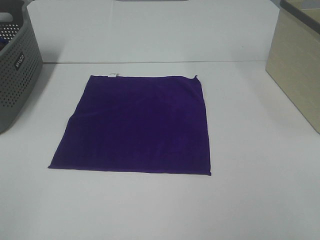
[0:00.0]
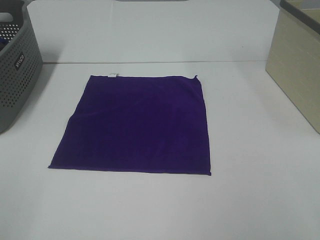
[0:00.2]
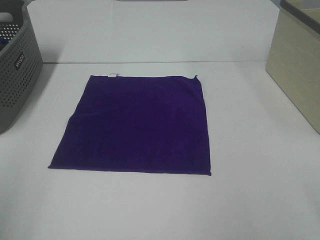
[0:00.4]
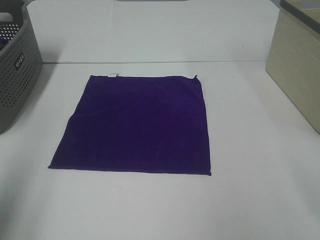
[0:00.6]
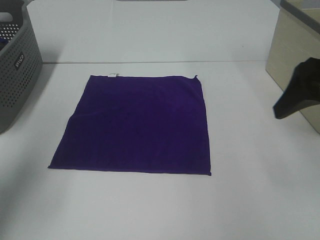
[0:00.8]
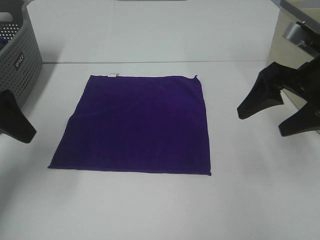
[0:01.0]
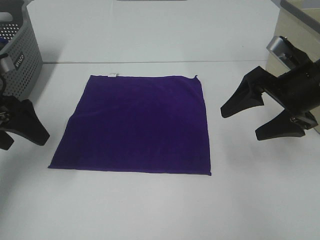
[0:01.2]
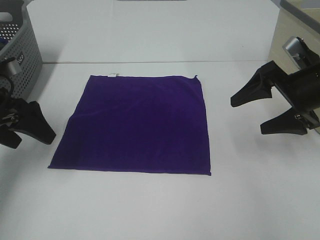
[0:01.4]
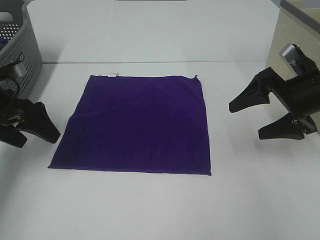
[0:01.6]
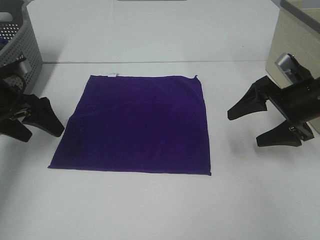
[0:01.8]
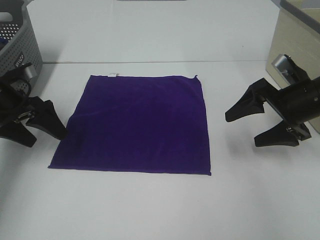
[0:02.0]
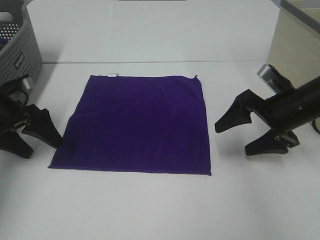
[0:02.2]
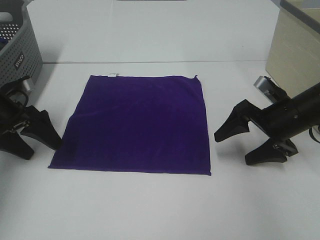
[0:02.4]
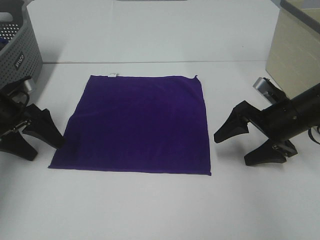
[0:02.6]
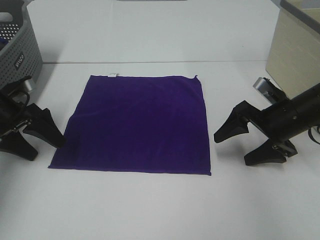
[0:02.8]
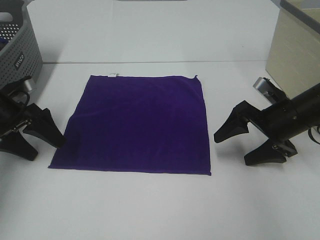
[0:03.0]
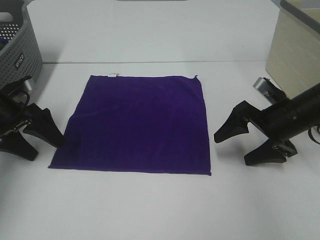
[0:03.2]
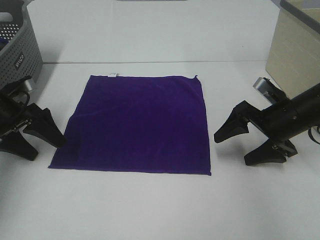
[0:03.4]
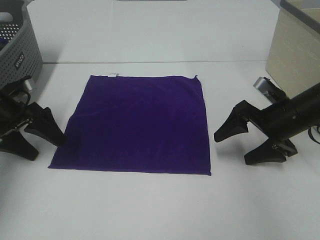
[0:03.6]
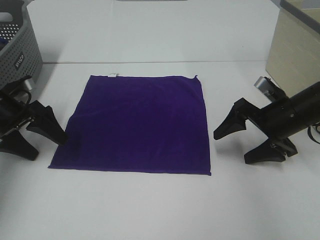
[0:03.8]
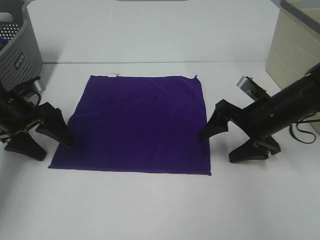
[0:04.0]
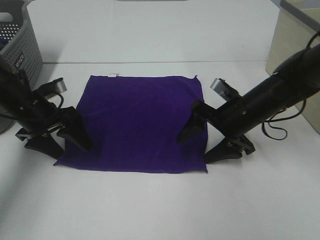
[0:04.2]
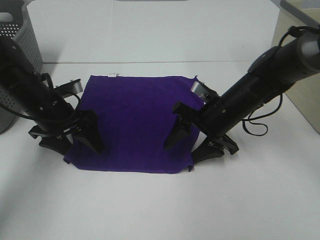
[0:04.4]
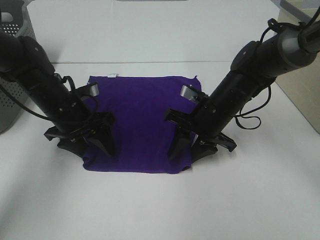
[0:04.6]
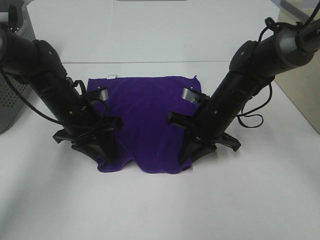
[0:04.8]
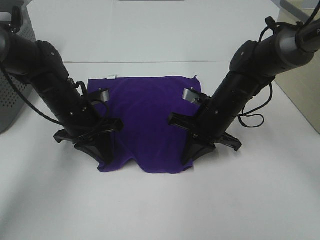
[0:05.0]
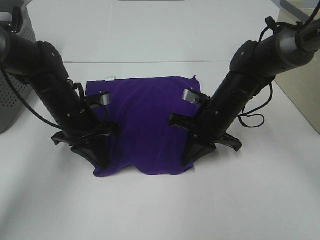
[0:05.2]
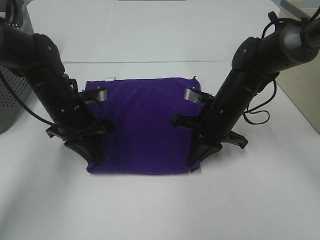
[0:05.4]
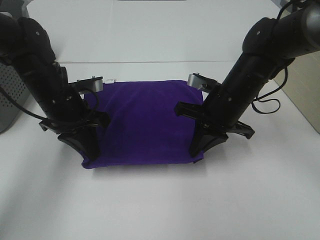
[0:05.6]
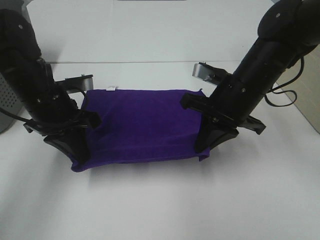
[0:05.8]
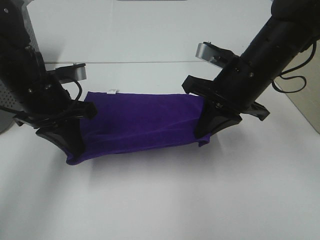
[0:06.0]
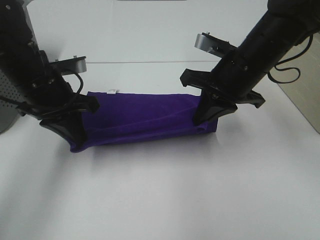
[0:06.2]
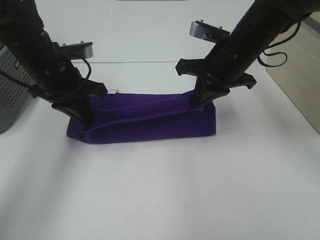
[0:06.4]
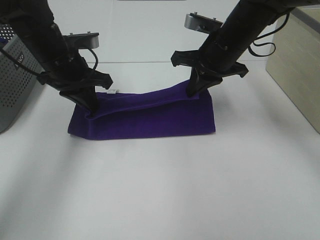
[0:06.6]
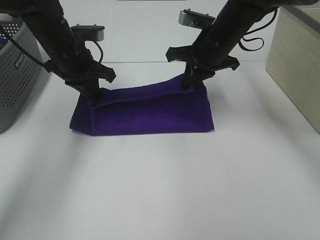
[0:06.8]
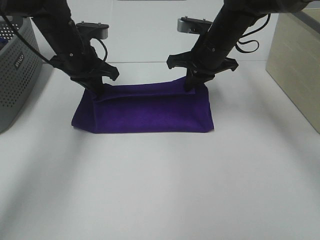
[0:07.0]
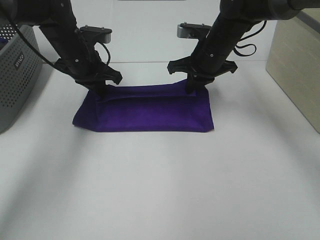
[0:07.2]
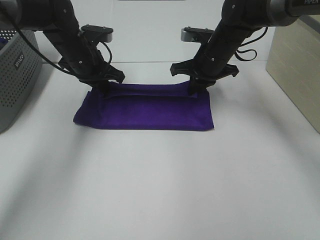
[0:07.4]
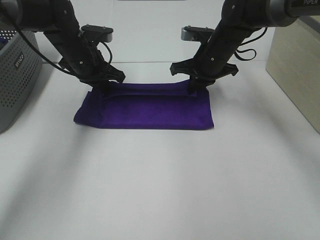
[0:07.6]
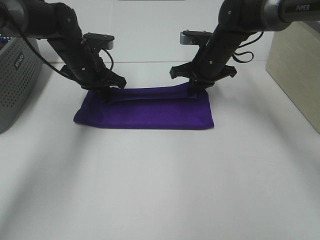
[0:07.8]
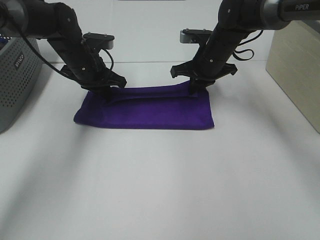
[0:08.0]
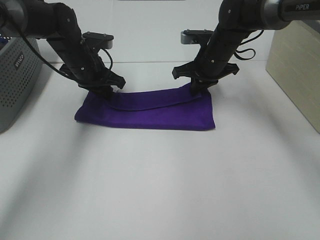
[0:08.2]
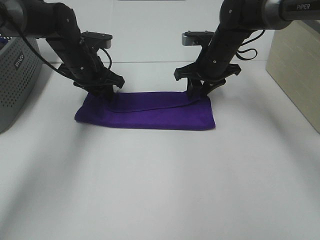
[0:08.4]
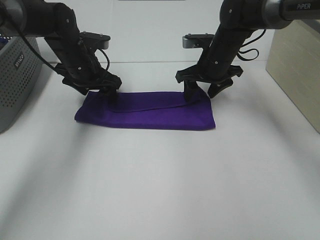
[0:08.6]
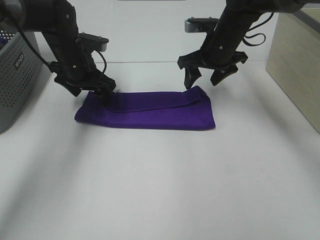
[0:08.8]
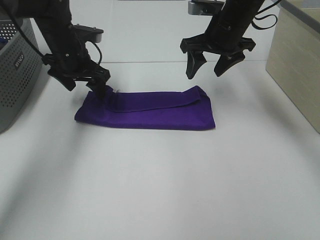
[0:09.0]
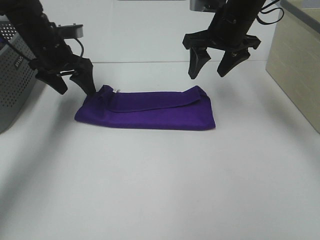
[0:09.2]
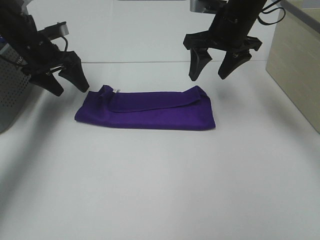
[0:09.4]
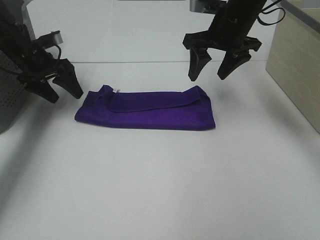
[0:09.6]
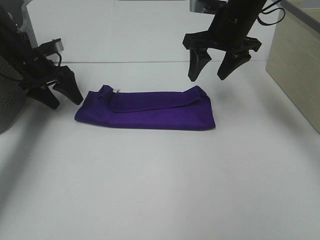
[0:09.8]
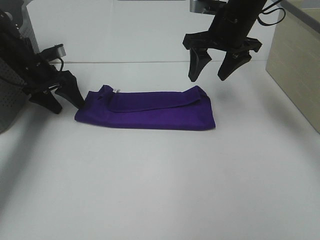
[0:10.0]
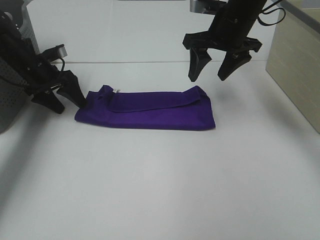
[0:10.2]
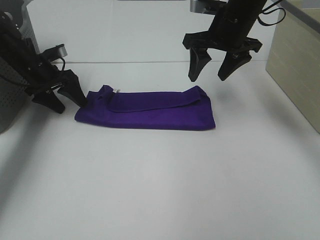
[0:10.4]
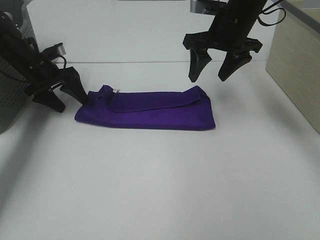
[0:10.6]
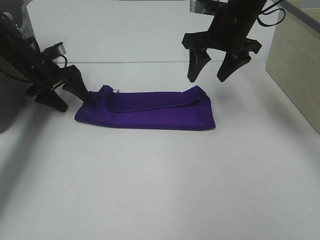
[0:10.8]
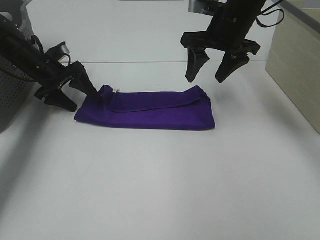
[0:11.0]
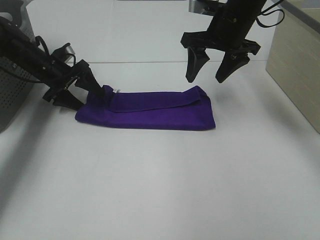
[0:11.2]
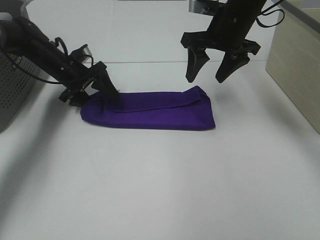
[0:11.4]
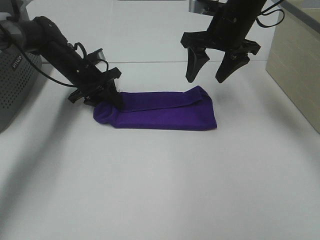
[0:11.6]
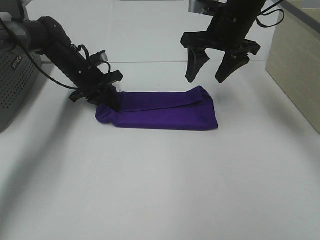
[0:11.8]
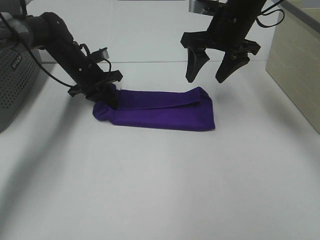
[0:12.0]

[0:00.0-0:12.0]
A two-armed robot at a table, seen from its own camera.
Task of the whole recording: Fold towels.
Step, 0:00.0 to 0:04.8: Left hand: grab the bottom left corner of purple towel.
Step, 0:00.0 to 0:04.8: Right hand: grab the bottom right corner of purple towel.
Step, 0:05.0 to 0:08.4: Left hand: fold the purple towel up.
Step, 0:05.0 to 0:08.4: Right hand: fold the purple towel up.
0:00.0 to 0:01.6: The right gripper goes about 35 cm forward and downward; the left gripper goes about 35 cm forward.
0:01.6 to 0:03.0: The two grippers go approximately 5 cm downward.
0:03.0 to 0:04.4: The right gripper moves to the left, about 10 cm, while the left gripper moves to the right, some 10 cm.
0:04.4 to 0:06.0: The grippers both shift upward by some 10 cm. The right gripper closes up, while the left gripper closes.
0:06.0 to 0:07.6: Both grippers travel together forward, about 15 cm.
0:07.6 to 0:09.0: The left gripper opens, while the right gripper moves upward, about 10 cm, and opens its fingers.
0:09.0 to 0:10.4: The left gripper heads to the left and downward, covering approximately 10 cm.
0:10.4 to 0:12.0: The left gripper goes about 10 cm to the right, and closes.

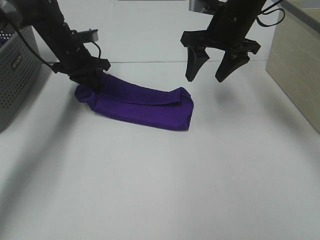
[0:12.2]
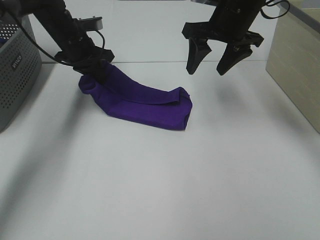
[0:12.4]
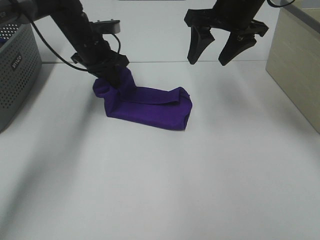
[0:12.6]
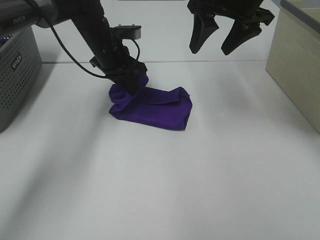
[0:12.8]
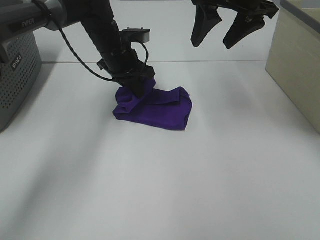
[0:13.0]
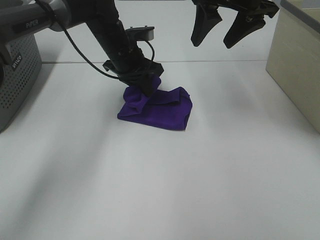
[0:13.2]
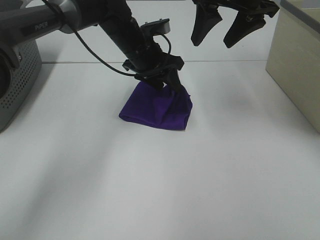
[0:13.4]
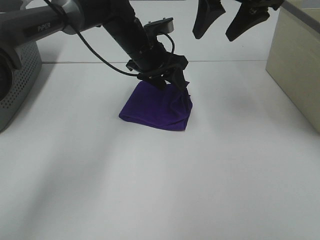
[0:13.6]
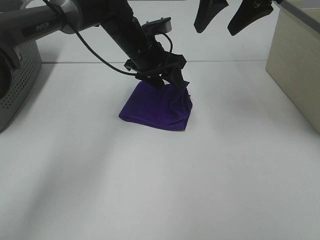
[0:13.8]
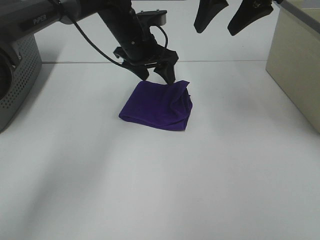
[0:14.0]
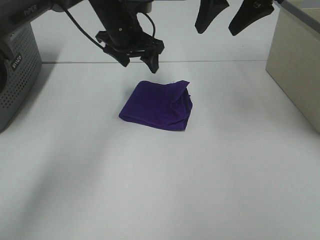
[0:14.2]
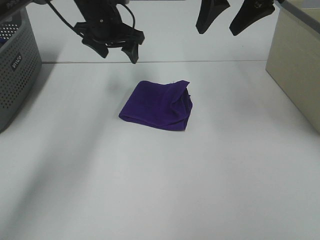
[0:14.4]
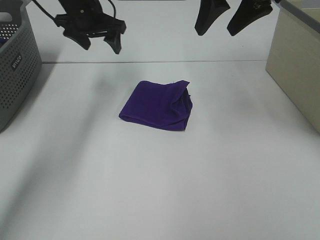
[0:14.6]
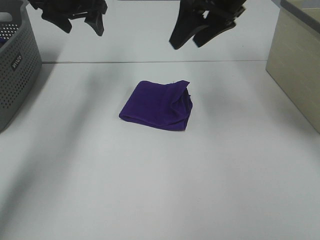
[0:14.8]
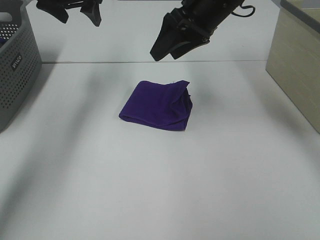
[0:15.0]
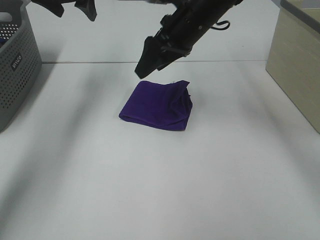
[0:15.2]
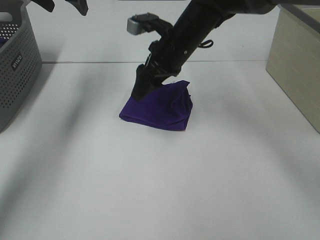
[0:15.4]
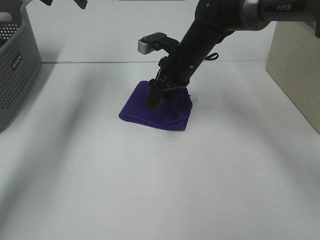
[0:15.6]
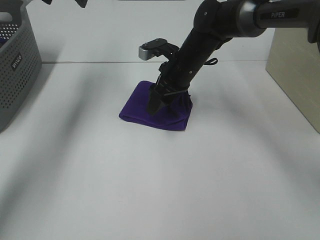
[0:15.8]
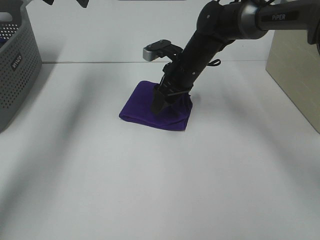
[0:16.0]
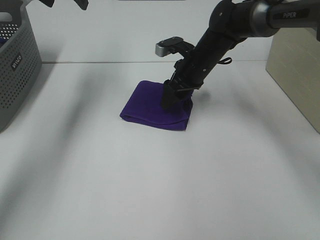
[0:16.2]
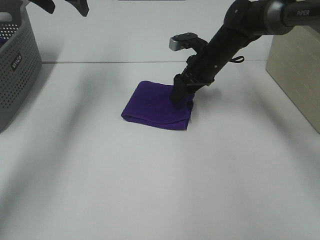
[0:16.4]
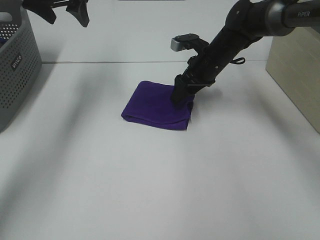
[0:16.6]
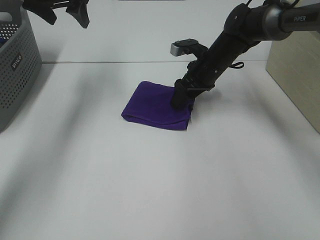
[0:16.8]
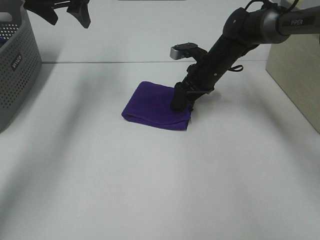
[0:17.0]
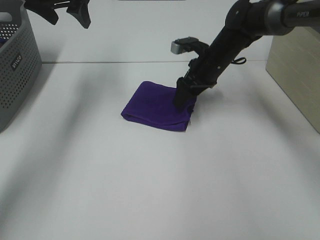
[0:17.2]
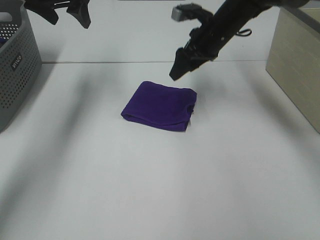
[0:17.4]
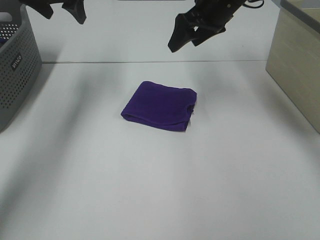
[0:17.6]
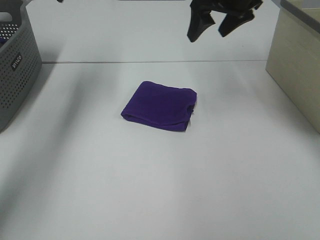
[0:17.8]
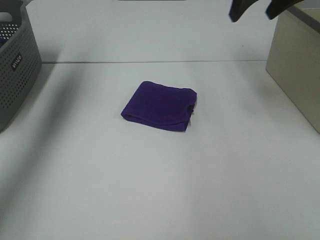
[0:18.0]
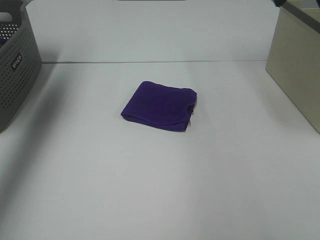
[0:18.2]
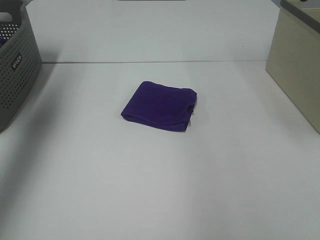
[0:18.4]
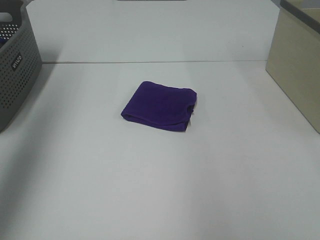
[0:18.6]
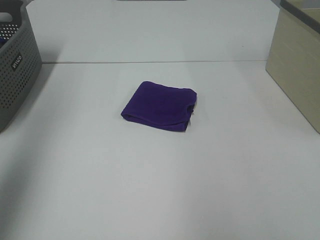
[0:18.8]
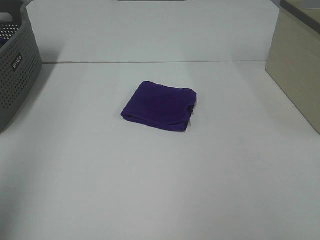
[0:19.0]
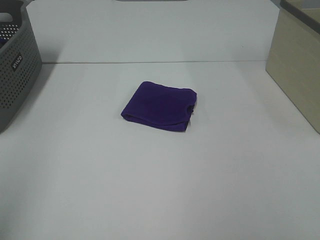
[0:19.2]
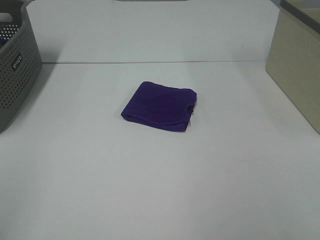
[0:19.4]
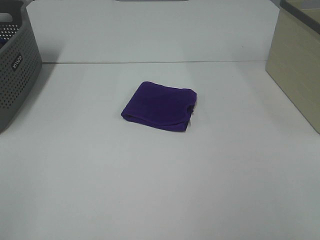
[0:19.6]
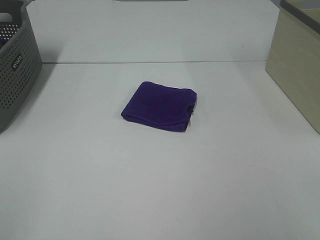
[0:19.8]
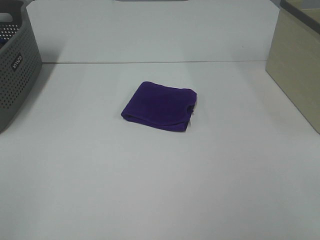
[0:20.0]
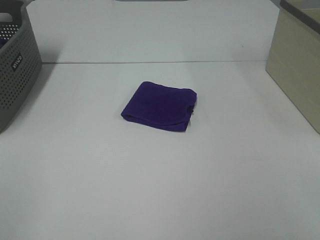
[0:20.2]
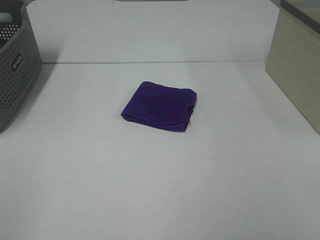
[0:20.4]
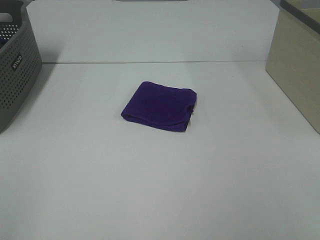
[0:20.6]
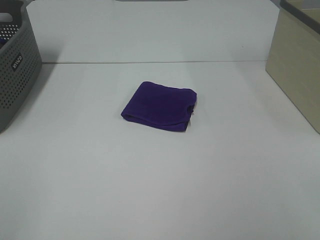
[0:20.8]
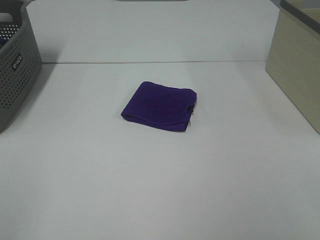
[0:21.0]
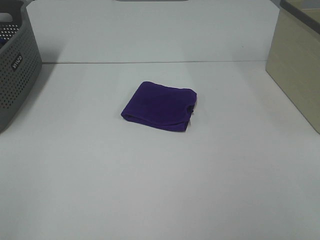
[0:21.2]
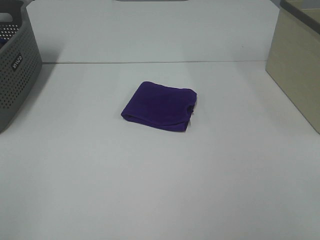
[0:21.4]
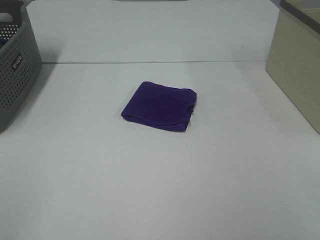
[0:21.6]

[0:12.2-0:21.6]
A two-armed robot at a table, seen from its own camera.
Task of the whole recording: Fold towels.
Step, 0:13.4 to 0:16.6: Right hand: adjust the purple towel.
0:12.2 to 0:13.8: The left gripper moves to the right, about 15 cm, and opens its fingers, while the right gripper is displaced upward by approximately 10 cm.
0:13.8 to 0:15.4: The right gripper shifts some 20 cm downward and to the left, while the left gripper shifts some 25 cm to the left and upward.
0:15.4 to 0:17.0: The right gripper moves to the right and downward, some 10 cm.
0:17.0 to 0:18.4: The right gripper heads upward, backward and to the right, covering about 35 cm. Meanwhile the left gripper heads backward, upward and to the left, covering some 25 cm.
0:18.4 to 0:20.0: The left gripper travels backward and downward by roughly 35 cm.
0:20.0 to 0:21.6: The two grippers keep their place.
